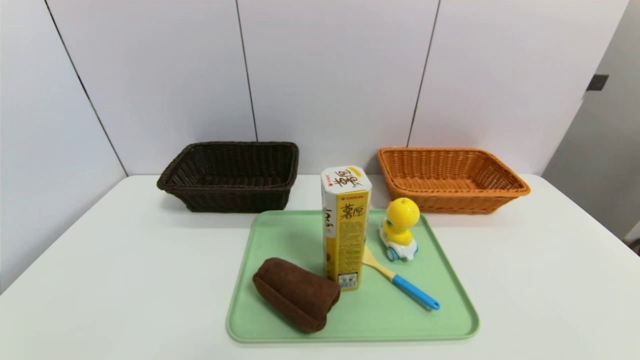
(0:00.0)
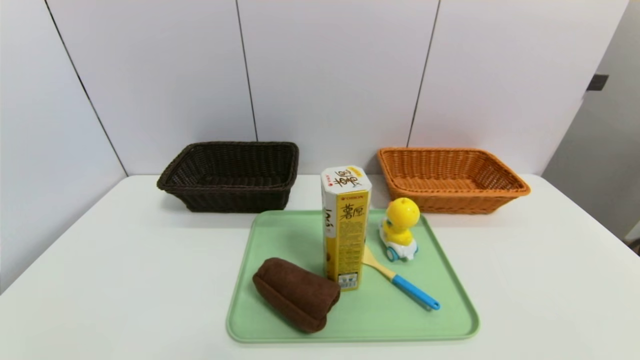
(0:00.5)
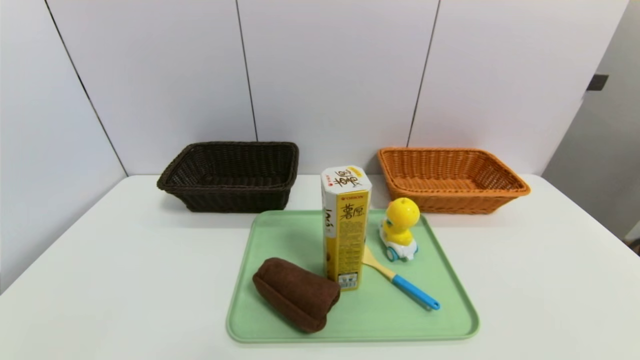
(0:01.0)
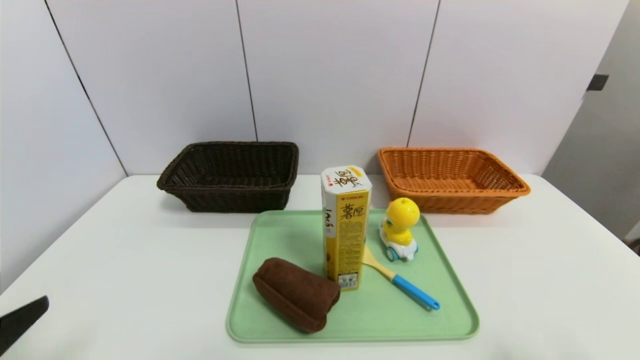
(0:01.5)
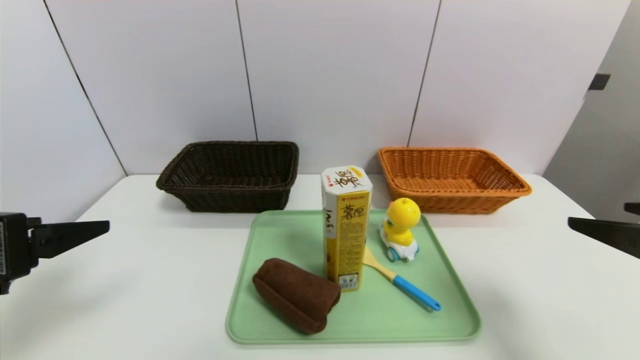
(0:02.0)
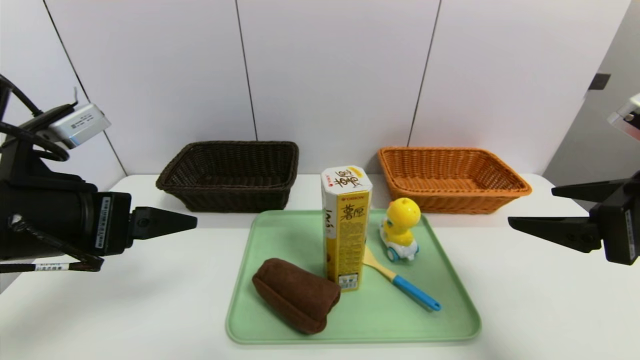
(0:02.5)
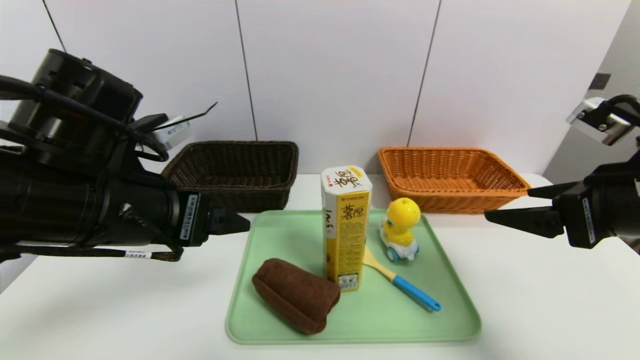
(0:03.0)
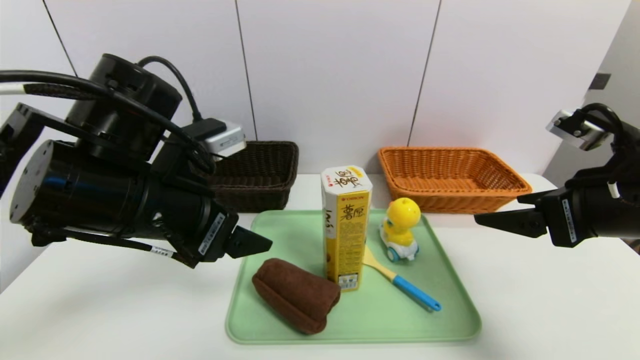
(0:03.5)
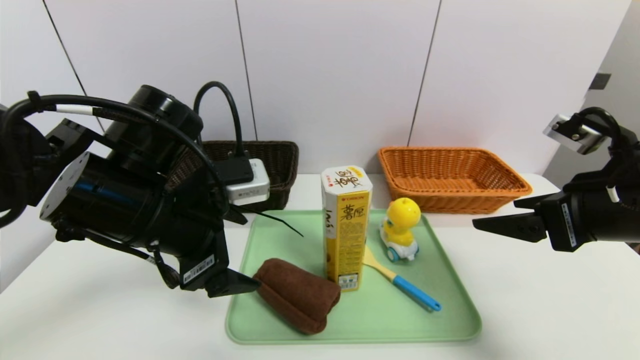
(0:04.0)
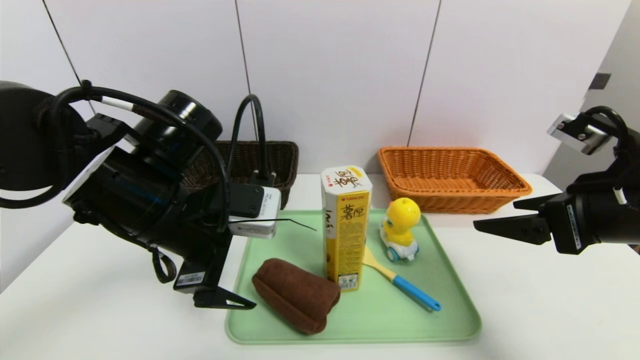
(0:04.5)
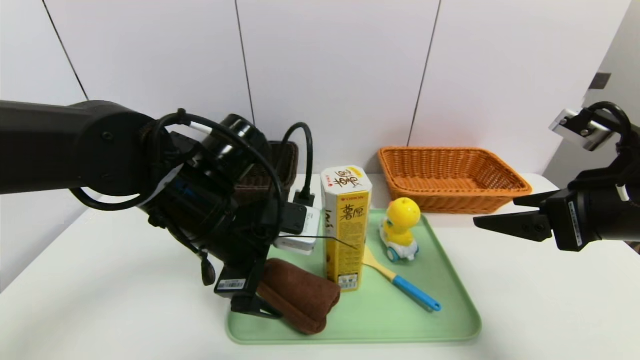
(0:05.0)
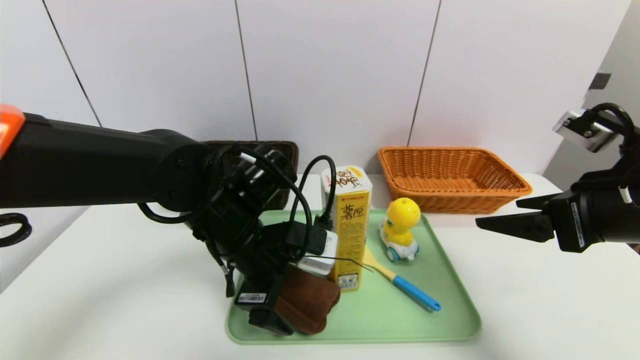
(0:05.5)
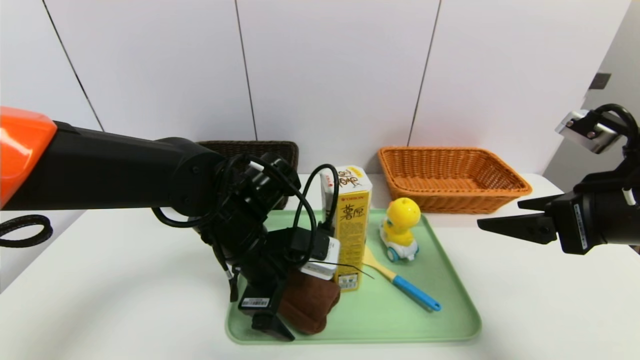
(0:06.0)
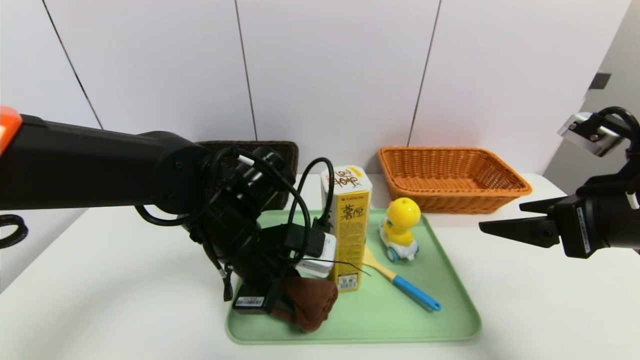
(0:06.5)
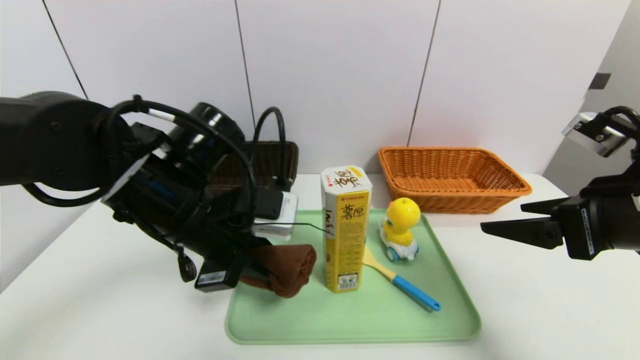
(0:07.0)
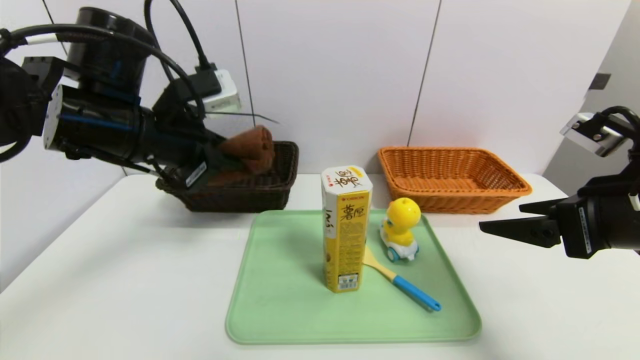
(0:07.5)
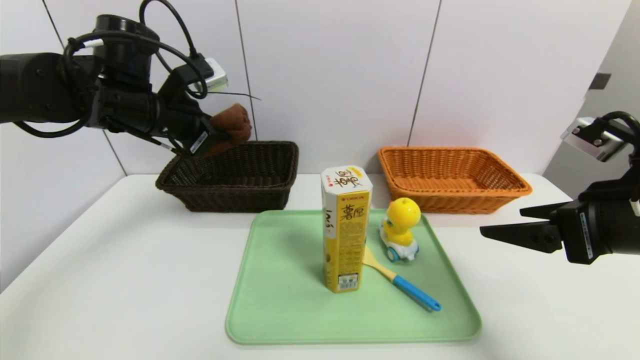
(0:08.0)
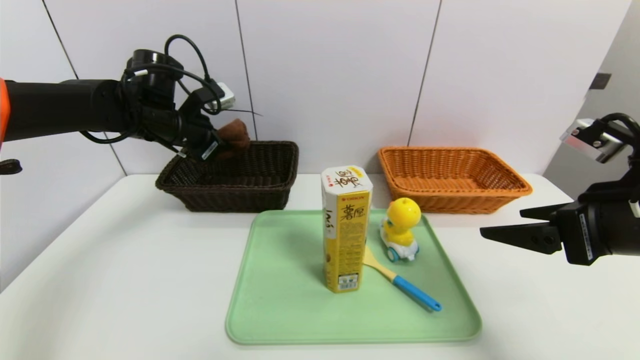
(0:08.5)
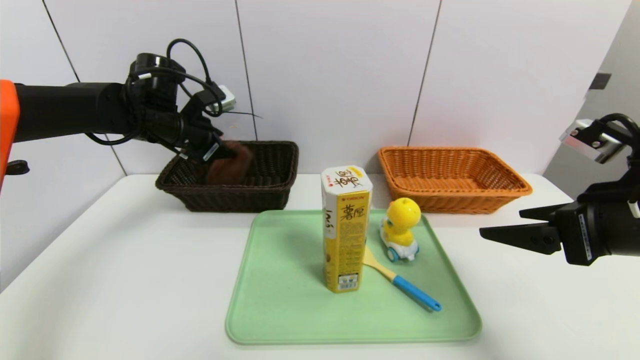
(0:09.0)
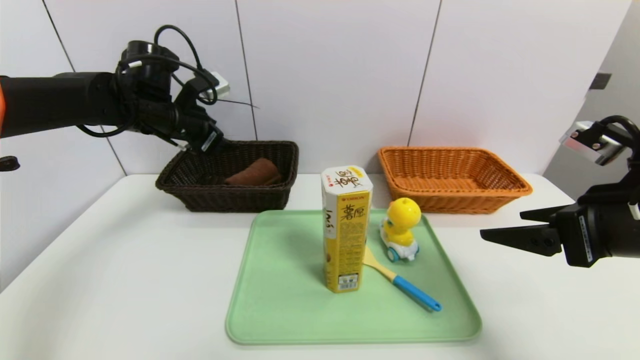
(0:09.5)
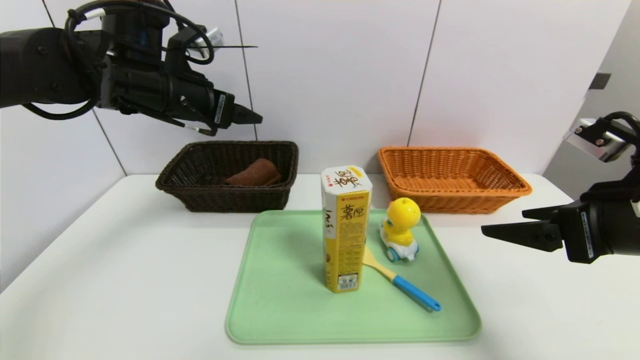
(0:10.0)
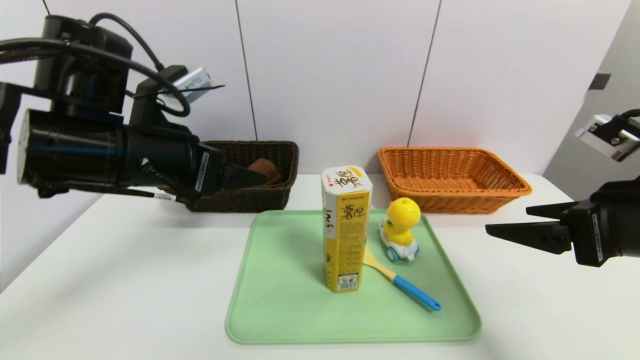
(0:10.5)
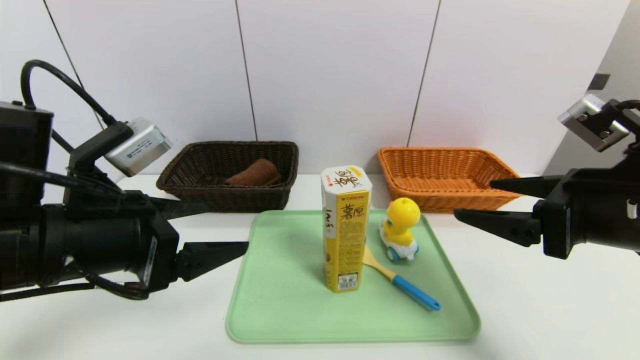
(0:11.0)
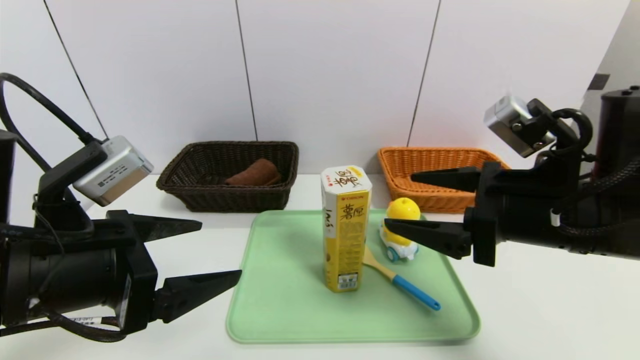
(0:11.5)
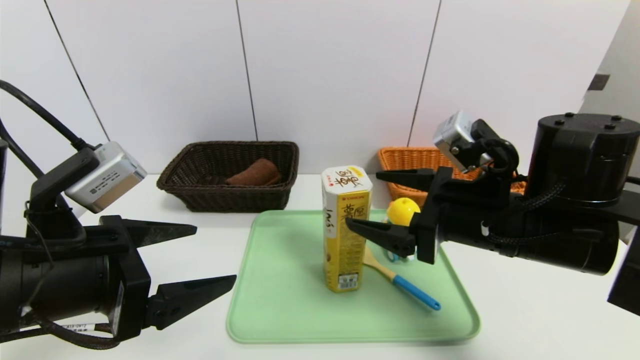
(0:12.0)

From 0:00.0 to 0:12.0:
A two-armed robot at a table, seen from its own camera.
Task of the whole recording: place the food in the right basket with the right gripper, and place the non food items in the left basket with the left gripper.
Step, from 0:00.0 to 0:09.0: Grasp the brown towel and put it in the left basket.
From 0:00.0 to 0:02.0: Both grippers move upward and forward, about 25 cm.
From 0:02.0 to 0:04.0: The left gripper travels to the right and forward by approximately 15 cm; the right gripper shifts approximately 5 cm forward.
From 0:04.0 to 0:06.0: The left gripper heads downward and to the right, covering roughly 10 cm.
From 0:06.0 to 0:08.0: The left gripper is displaced to the left, upward and forward by approximately 20 cm, and closes its fingers.
From 0:08.0 to 0:10.0: The left gripper opens.
From 0:10.0 to 0:12.0: The right gripper shifts approximately 10 cm to the left. Meanwhile the left gripper travels backward by about 20 cm.

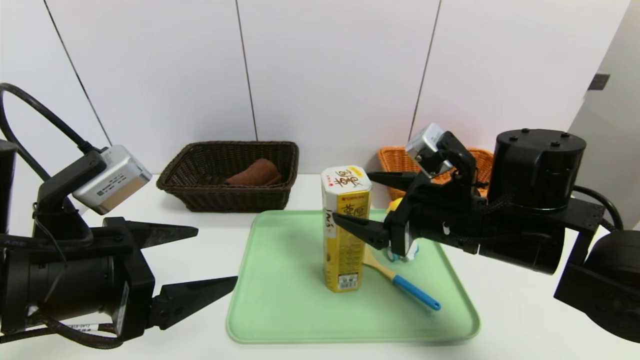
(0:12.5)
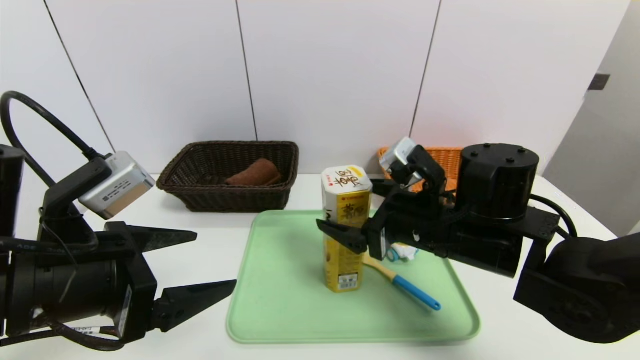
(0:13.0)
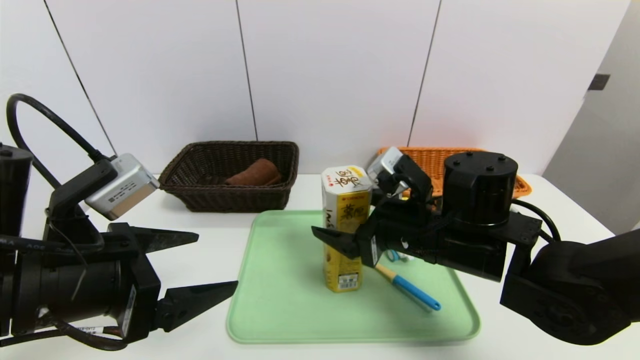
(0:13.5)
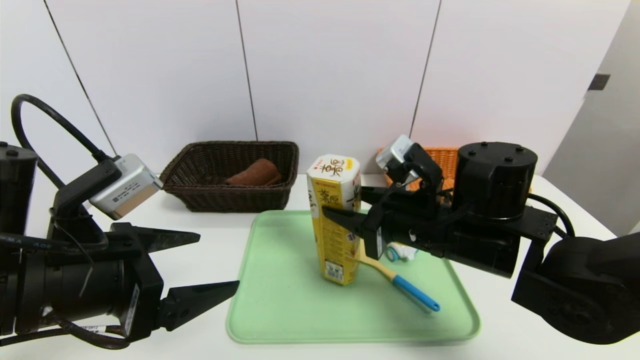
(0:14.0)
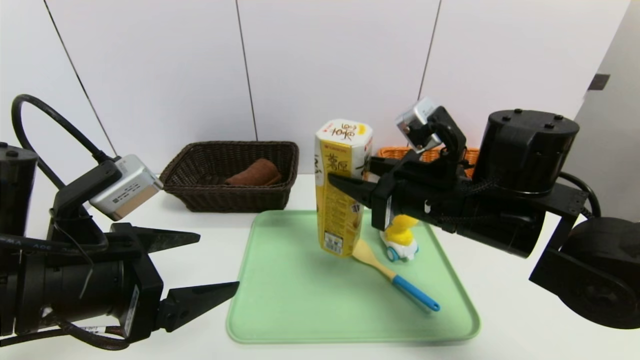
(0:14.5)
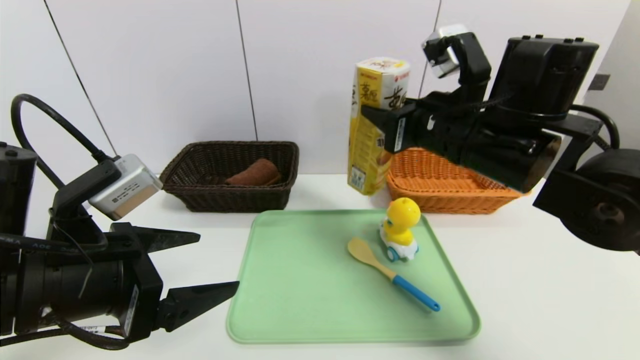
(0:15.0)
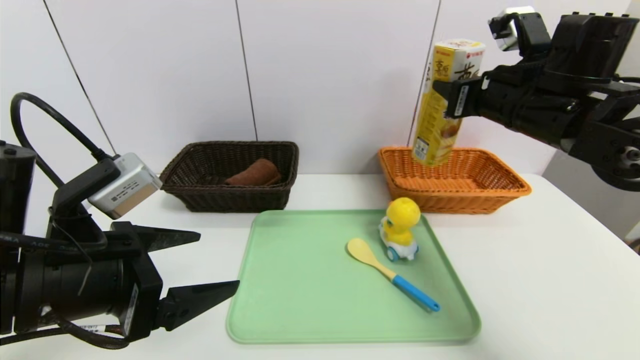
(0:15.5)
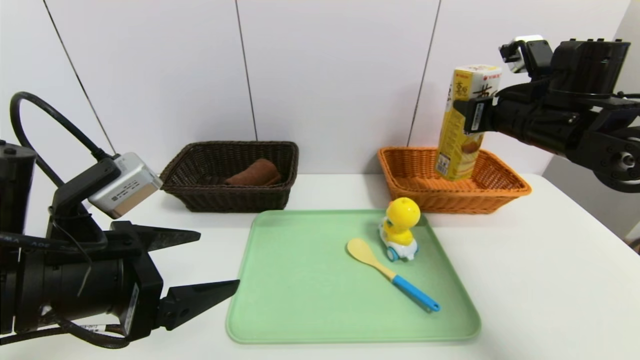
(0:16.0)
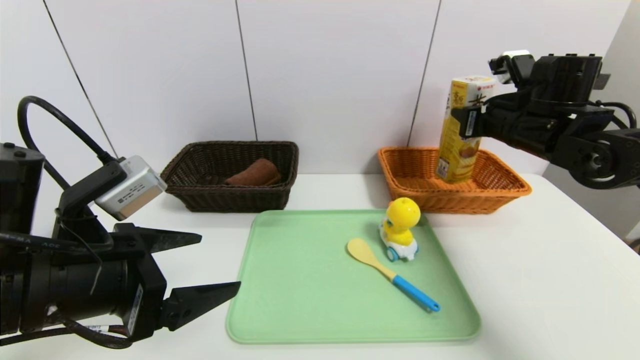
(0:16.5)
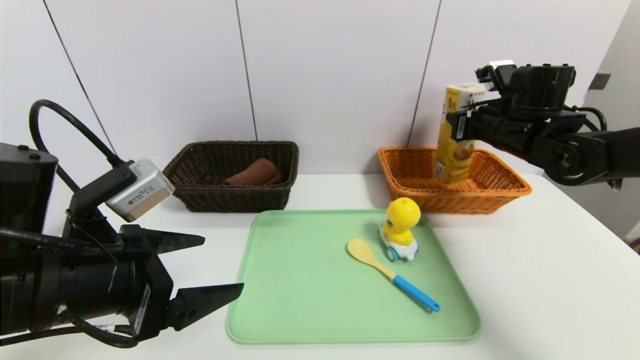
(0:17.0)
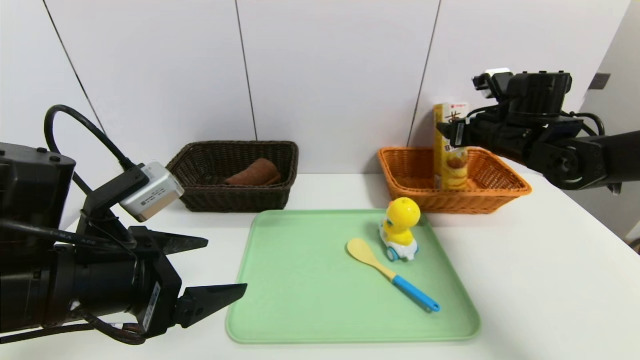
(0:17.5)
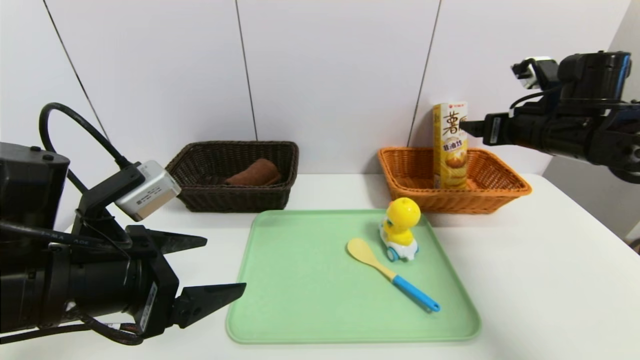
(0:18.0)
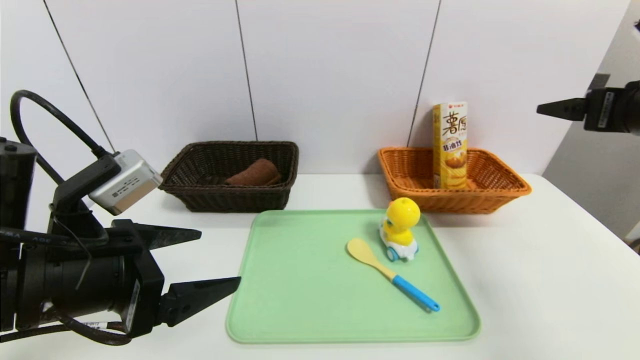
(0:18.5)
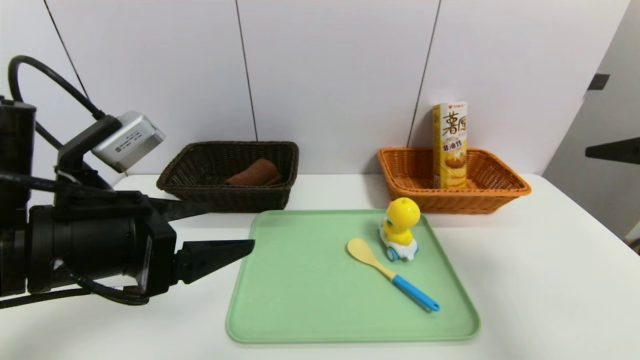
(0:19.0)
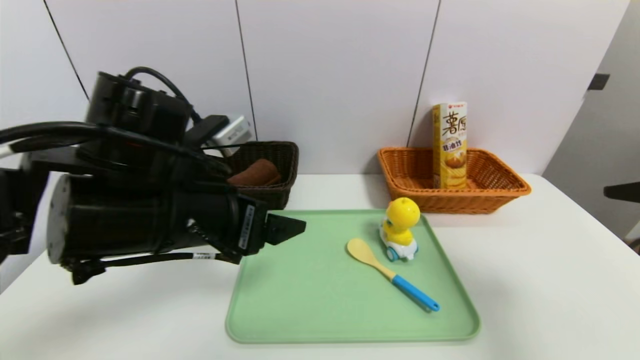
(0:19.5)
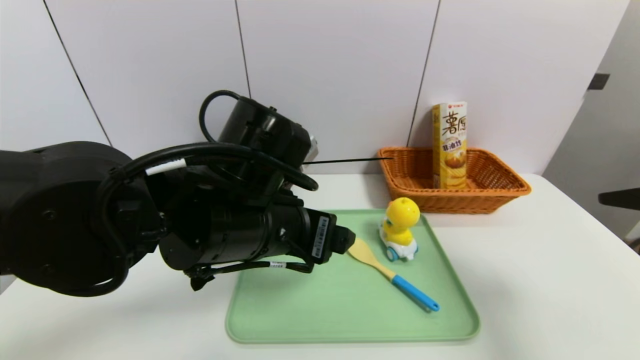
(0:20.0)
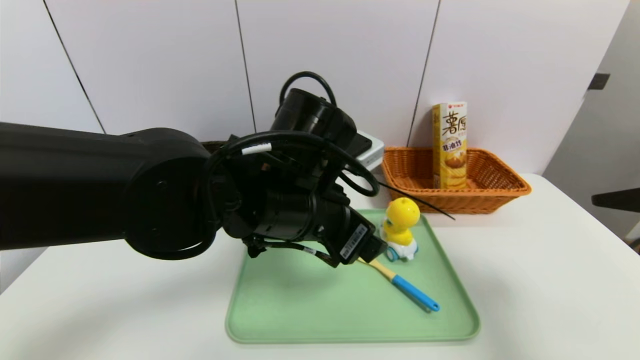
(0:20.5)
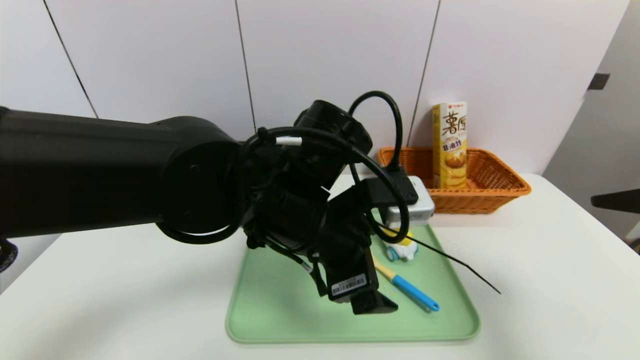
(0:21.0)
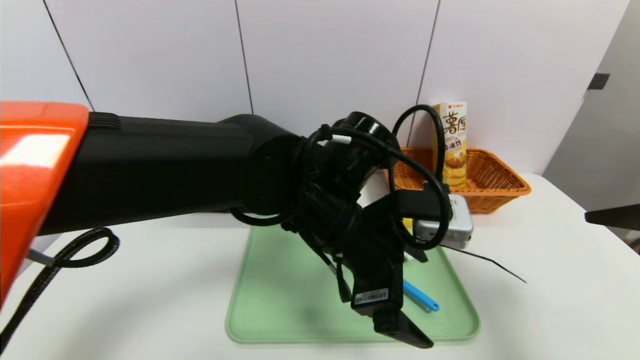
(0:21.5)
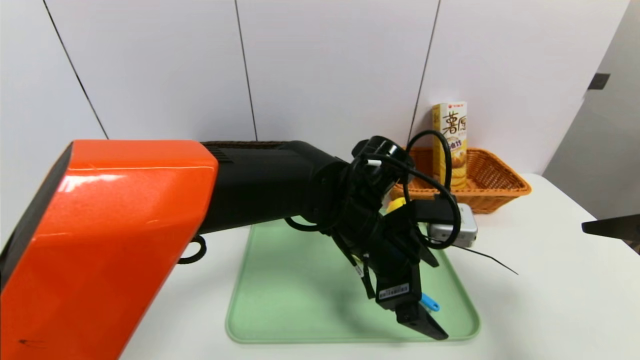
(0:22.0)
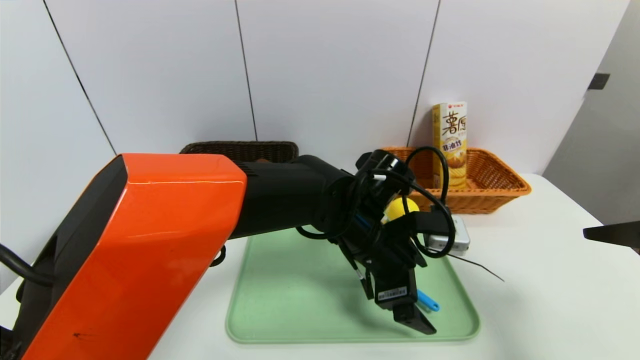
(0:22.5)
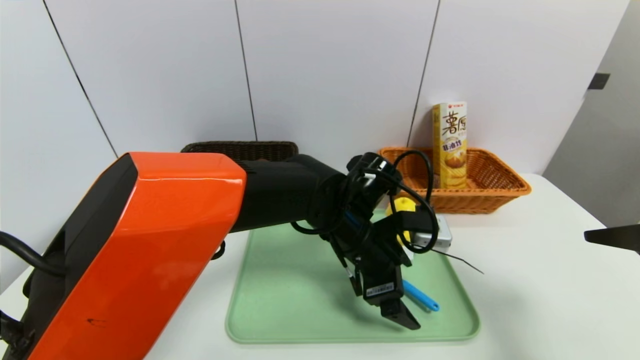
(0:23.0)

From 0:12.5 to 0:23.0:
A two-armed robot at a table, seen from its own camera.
Task of the whole recording: place the food in the right basket with the right gripper, and place the non food items in the left basket with the left gripper.
Step, from 0:12.5 to 0:18.0: Grasp the potato chips and put it in the right basket.
From 0:12.5 to 0:14.5: The right gripper closes its fingers.
From 0:14.5 to 0:16.5: The right gripper is displaced to the right and forward by approximately 20 cm.
From 0:16.5 to 0:19.0: The right gripper travels backward by about 20 cm, and opens up.
From 0:19.0 to 0:21.0: The left gripper goes approximately 20 cm to the right.
From 0:21.0 to 0:23.0: The left gripper heads downward, forward and to the right, covering roughly 10 cm.
